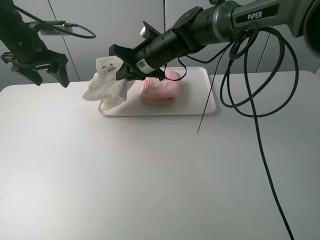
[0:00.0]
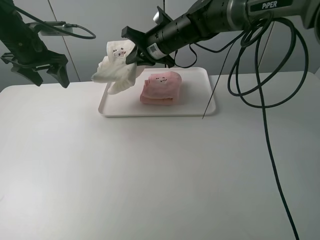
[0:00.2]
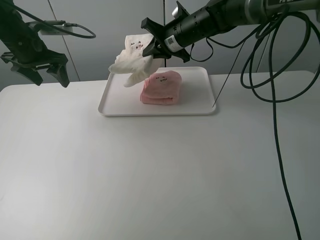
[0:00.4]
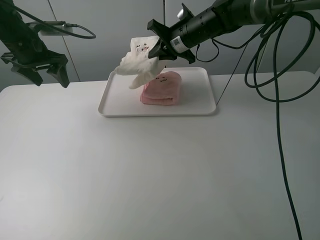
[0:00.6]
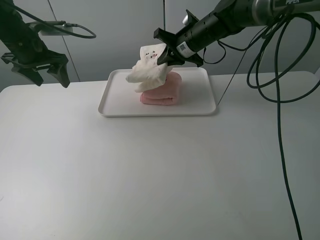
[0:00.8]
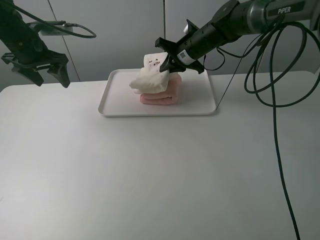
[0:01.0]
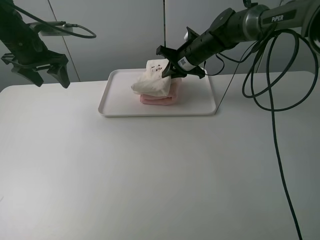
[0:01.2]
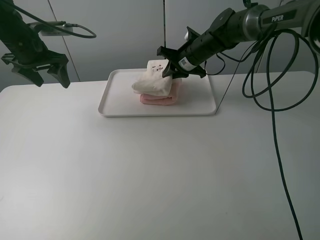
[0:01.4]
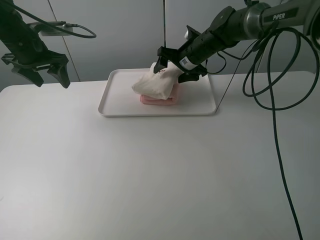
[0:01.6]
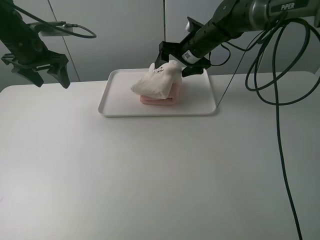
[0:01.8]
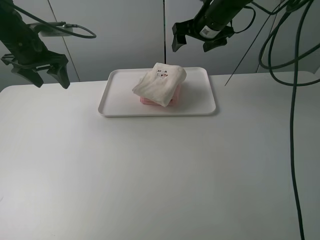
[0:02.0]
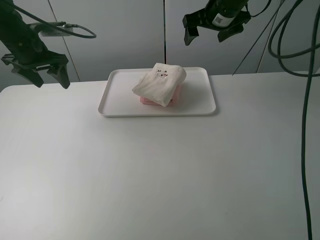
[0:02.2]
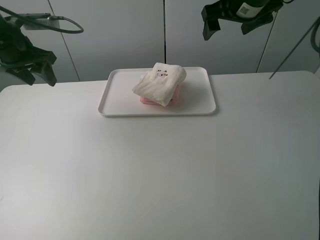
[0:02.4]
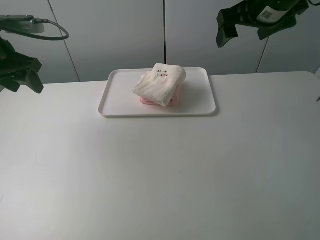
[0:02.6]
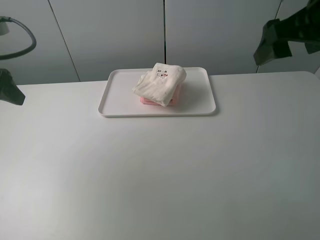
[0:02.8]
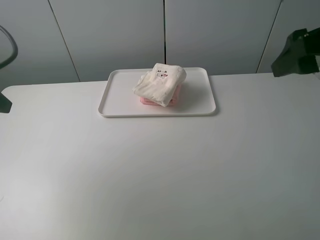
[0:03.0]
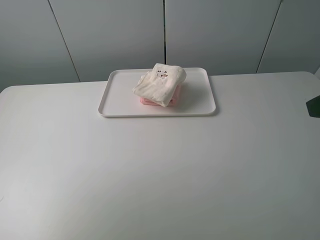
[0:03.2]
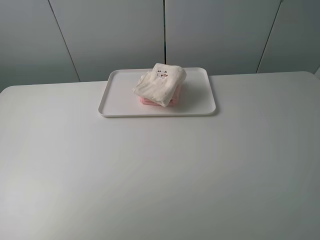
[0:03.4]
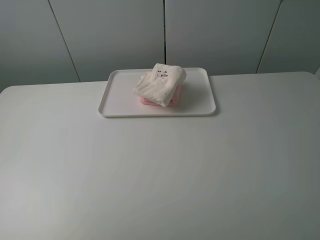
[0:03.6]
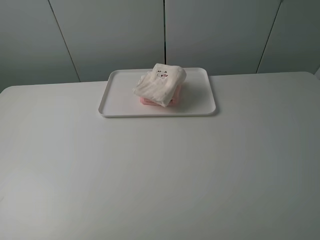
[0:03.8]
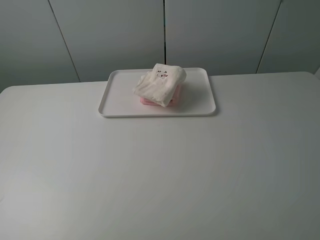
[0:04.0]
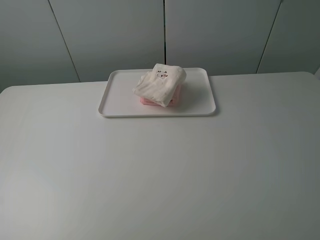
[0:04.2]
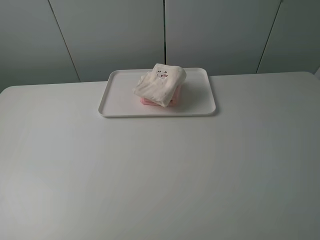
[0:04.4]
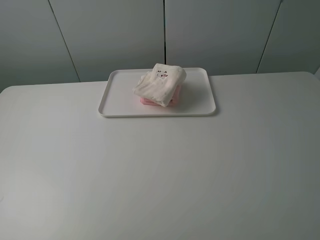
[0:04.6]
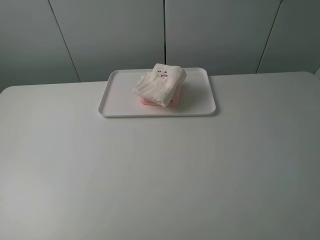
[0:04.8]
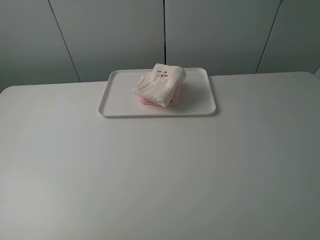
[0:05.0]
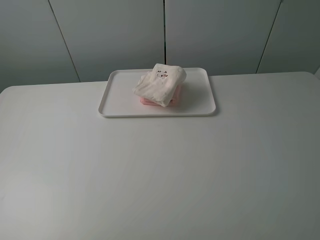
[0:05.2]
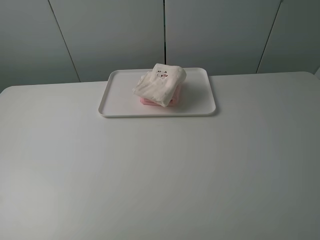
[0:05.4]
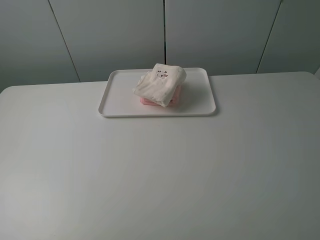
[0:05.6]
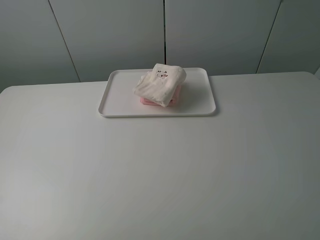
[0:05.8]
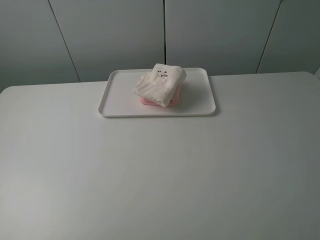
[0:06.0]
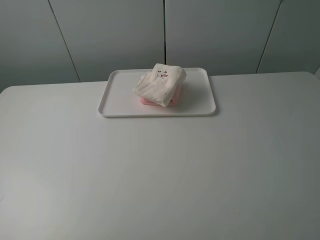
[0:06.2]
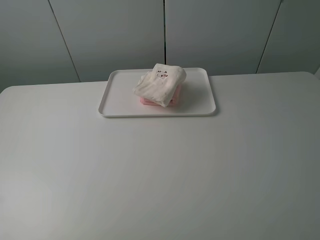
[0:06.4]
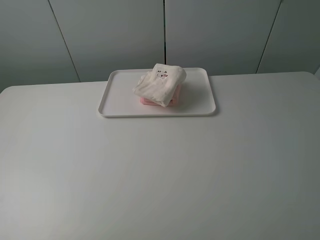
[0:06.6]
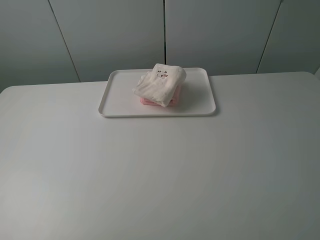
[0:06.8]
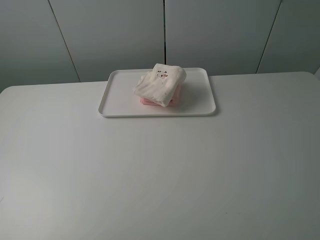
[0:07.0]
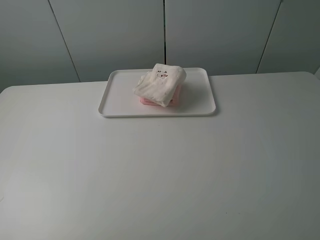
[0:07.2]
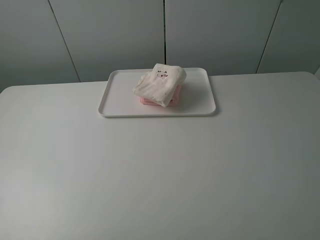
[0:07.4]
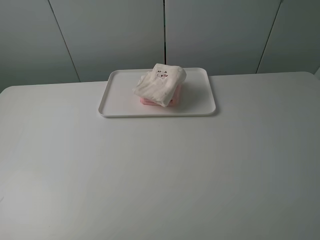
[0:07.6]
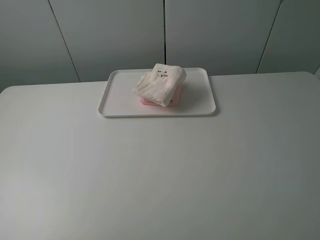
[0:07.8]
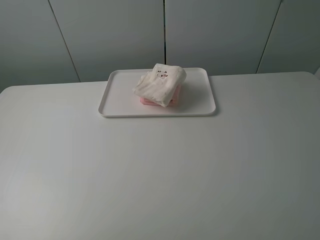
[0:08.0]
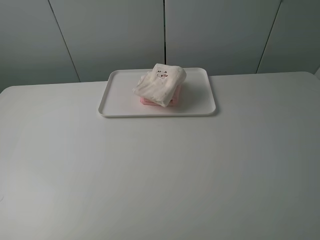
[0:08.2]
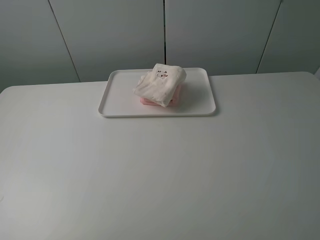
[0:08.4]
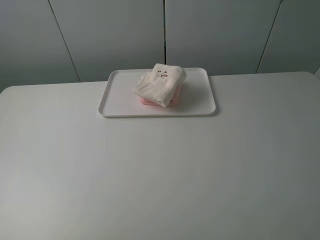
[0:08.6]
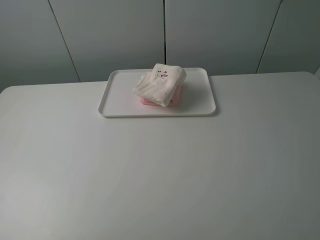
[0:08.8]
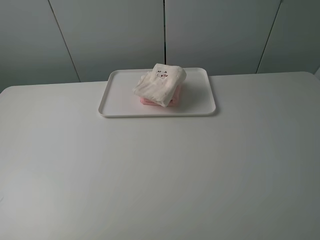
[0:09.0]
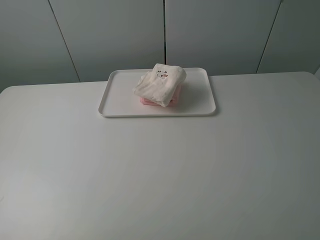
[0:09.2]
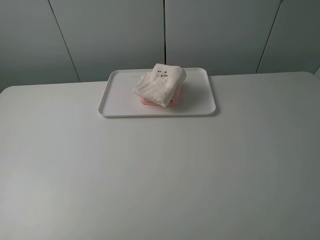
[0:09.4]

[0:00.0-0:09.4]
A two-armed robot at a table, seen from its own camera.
Task of the whole recording: fold one of the towels by two grippers and place it on the tray,then fold another towel by two grippers and place it on the folded towel.
Step, 0:00.0 to 0:01.8: Place the white towel on the pink towel with the right gripper.
0:00.0 to 0:01.6: The right gripper moves to the right and forward, some 10 cm, and opens.
0:01.6 to 0:03.2: The right gripper heads backward, to the right and upward, covering approximately 40 cm. The left gripper moves backward, approximately 30 cm.
0:03.2 to 0:04.8: The two grippers go about 10 cm backward.
0:07.8 to 0:09.4: Both grippers stay about where they are.
